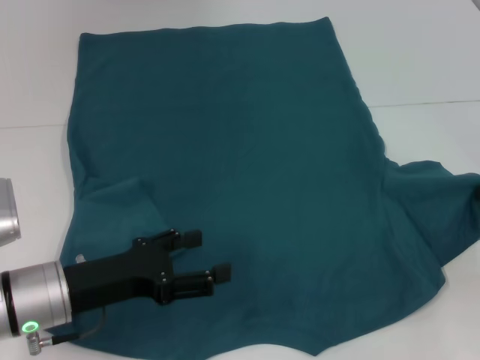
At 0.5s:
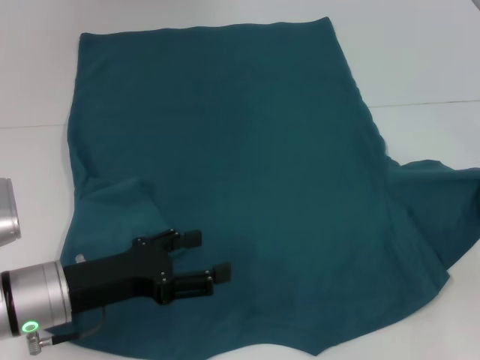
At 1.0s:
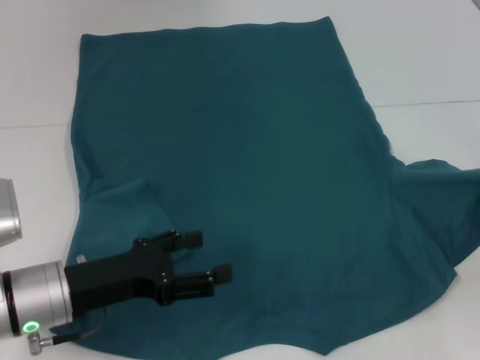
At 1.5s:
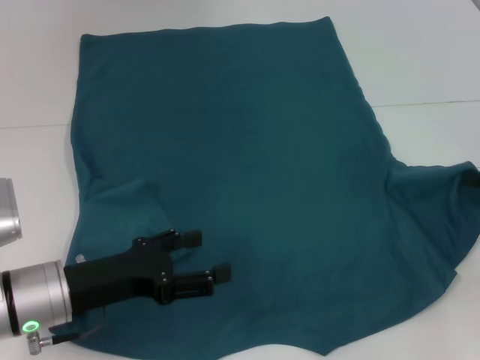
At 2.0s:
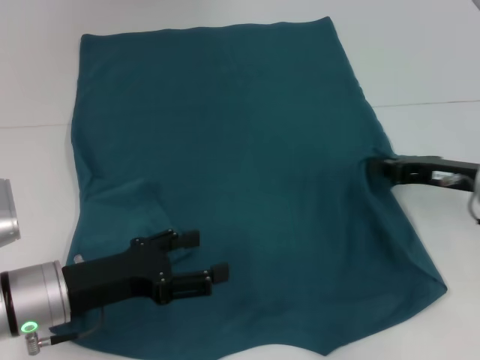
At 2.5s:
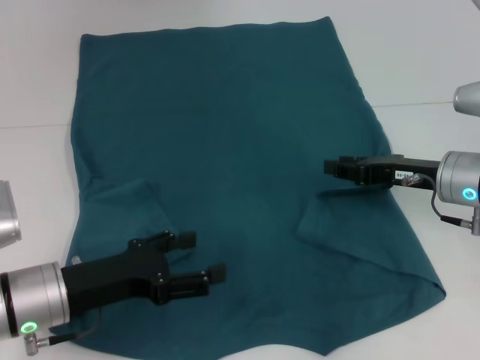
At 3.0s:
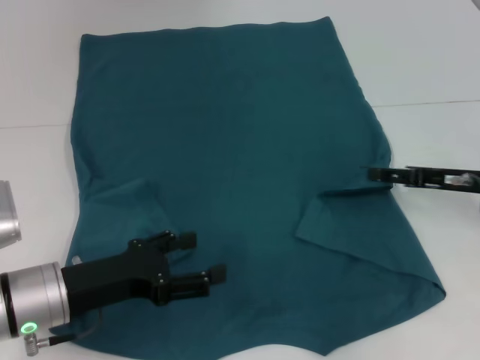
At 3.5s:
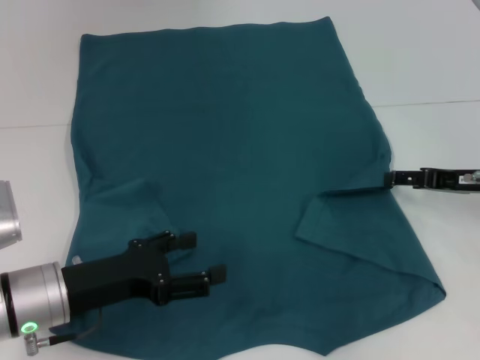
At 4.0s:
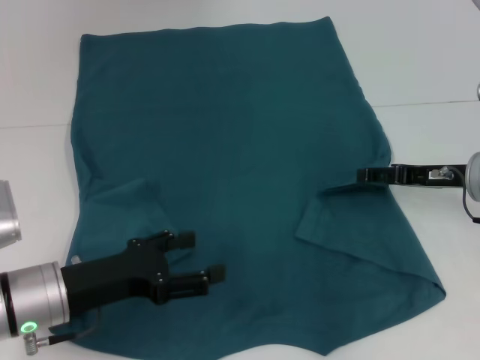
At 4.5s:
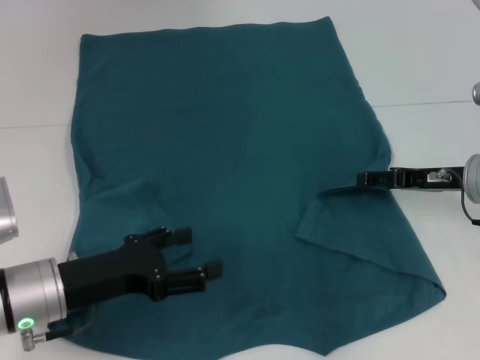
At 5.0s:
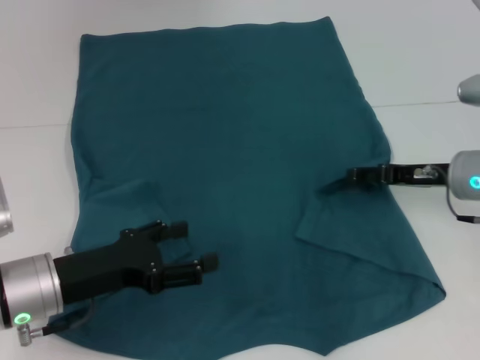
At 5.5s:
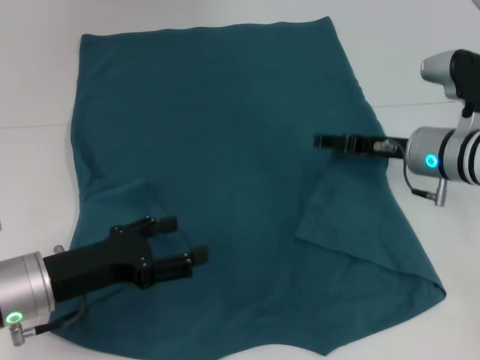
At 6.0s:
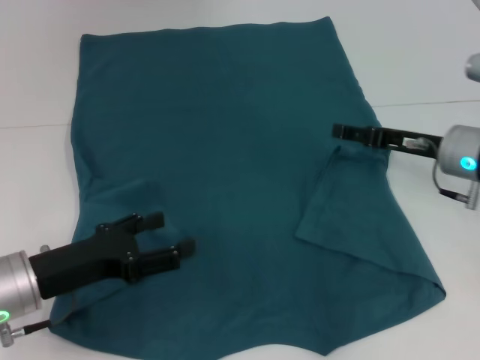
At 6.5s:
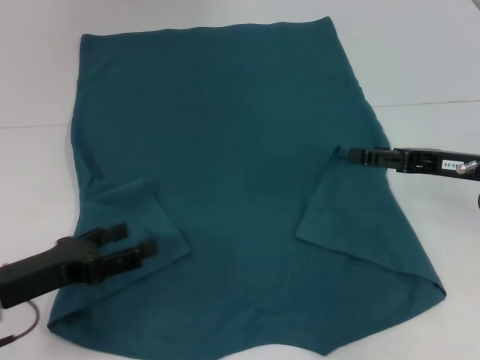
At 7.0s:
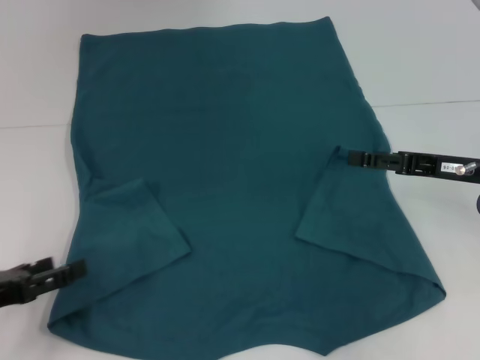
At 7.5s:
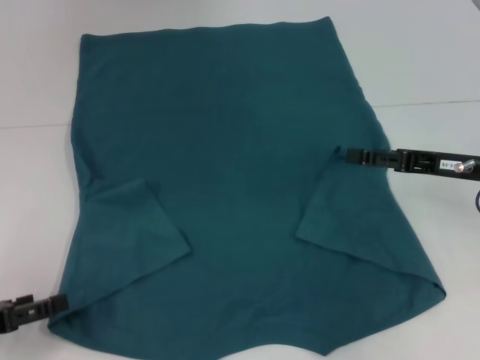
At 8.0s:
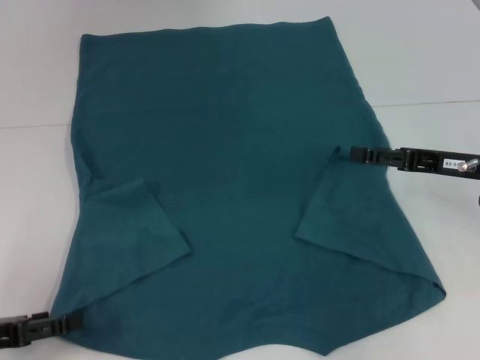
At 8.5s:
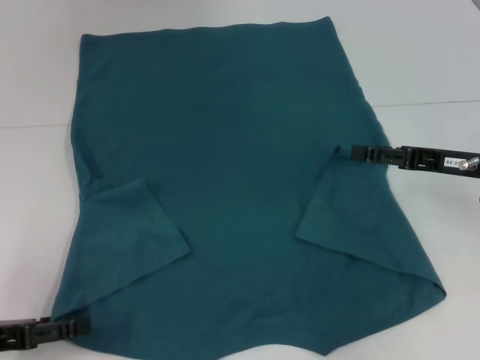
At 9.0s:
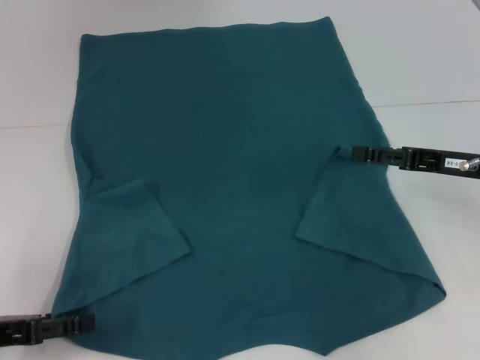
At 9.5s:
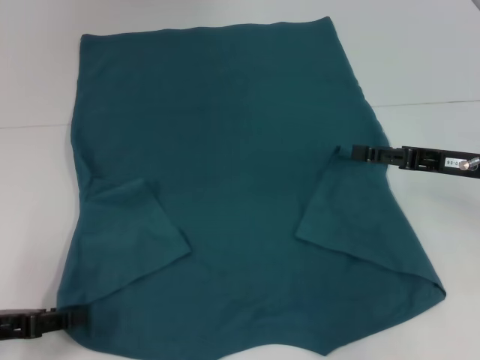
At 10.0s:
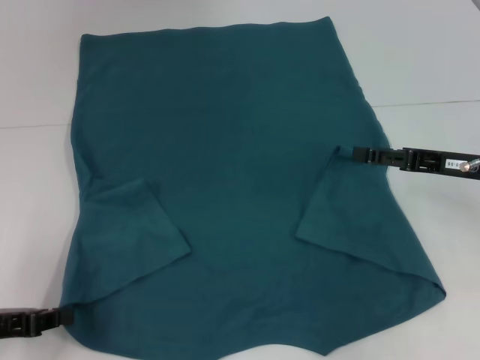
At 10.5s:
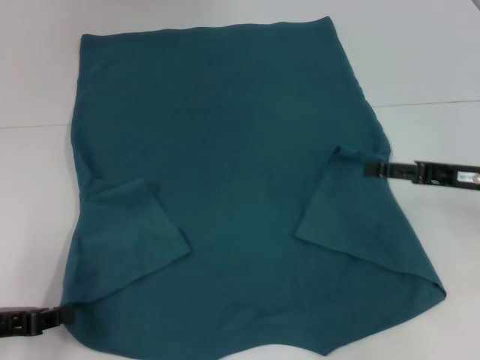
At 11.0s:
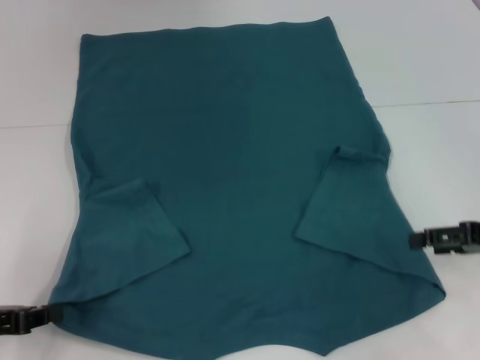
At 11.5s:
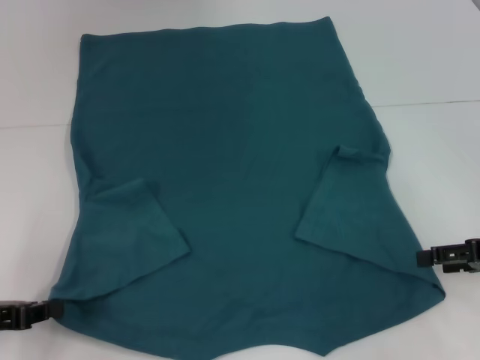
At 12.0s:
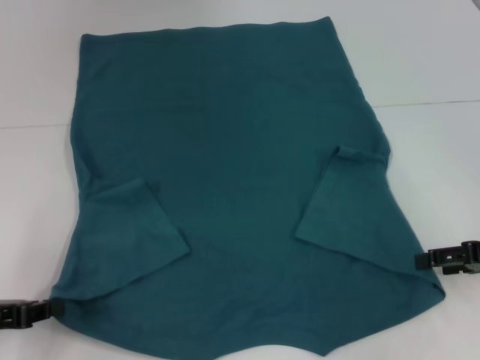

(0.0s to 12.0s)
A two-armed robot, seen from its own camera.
Step, 0.0s - 5.5s: Fold the bottom right sleeve to the right.
Step, 6.0s - 10.5s: Grab the bottom left corner with your left hand.
0.0s - 2.0s: The right gripper heads to the left, covering approximately 10 cm.
2.0s - 4.0s: The right gripper opens up.
6.0s - 8.0s: The right gripper moves some 5 cm. The left gripper heads to the left, covering roughly 10 cm.
8.0s - 10.0s: The left gripper closes up.
10.0s - 12.0s: The right gripper moves to the right, some 5 cm.

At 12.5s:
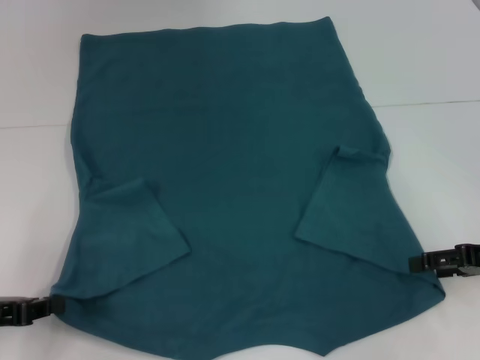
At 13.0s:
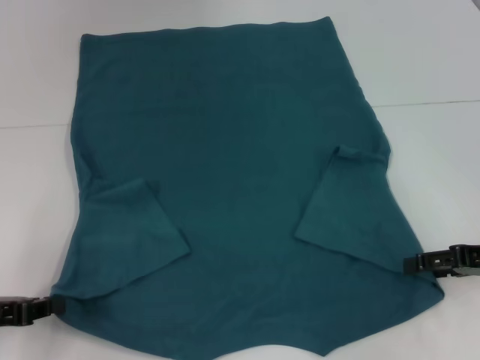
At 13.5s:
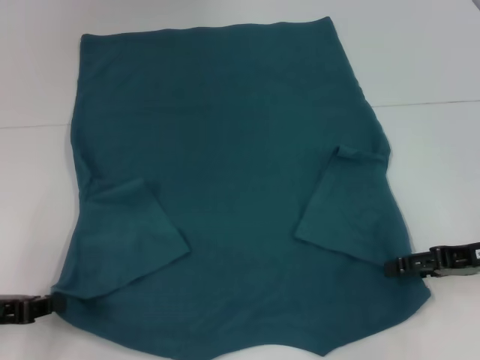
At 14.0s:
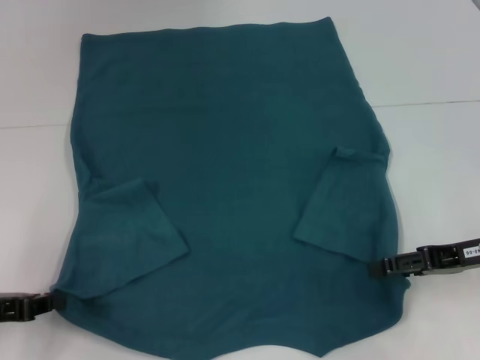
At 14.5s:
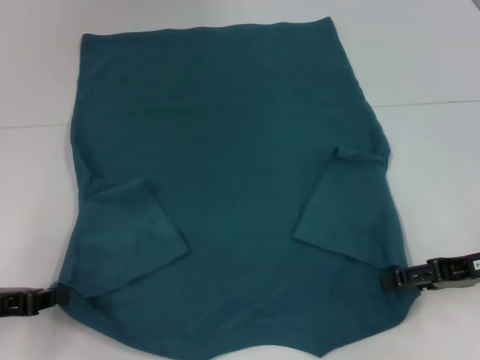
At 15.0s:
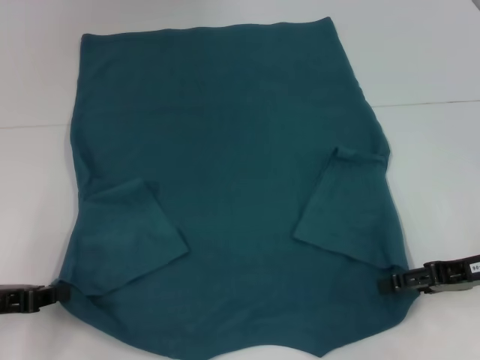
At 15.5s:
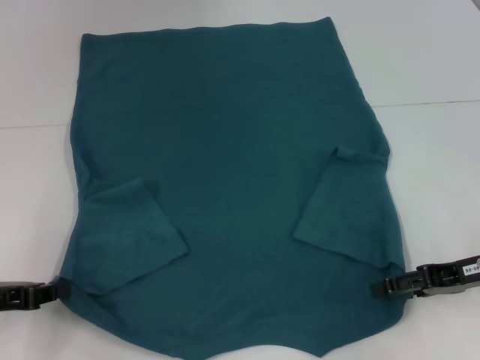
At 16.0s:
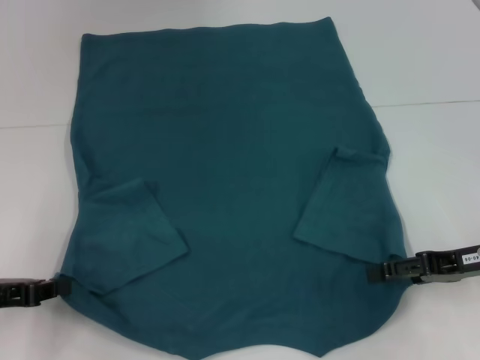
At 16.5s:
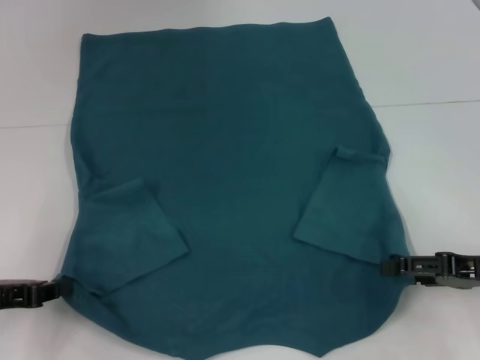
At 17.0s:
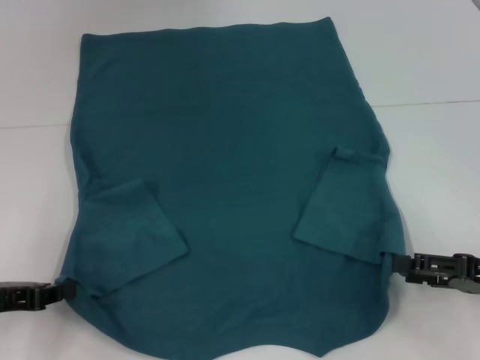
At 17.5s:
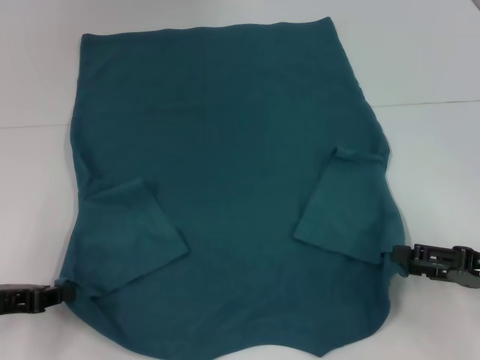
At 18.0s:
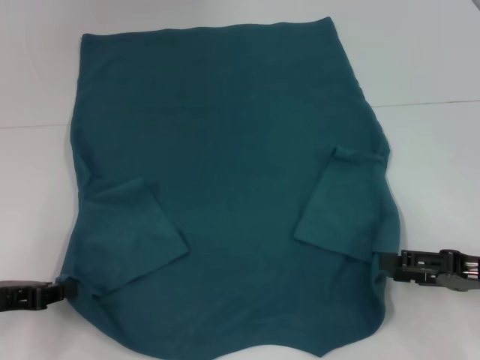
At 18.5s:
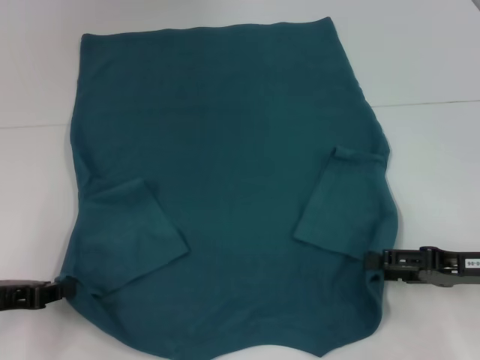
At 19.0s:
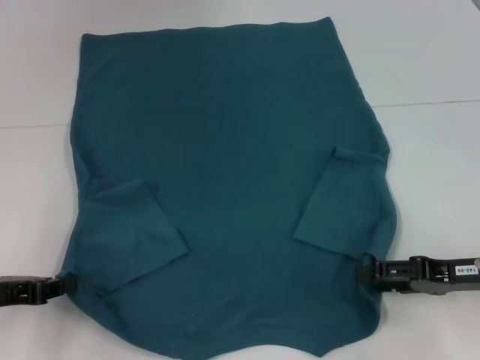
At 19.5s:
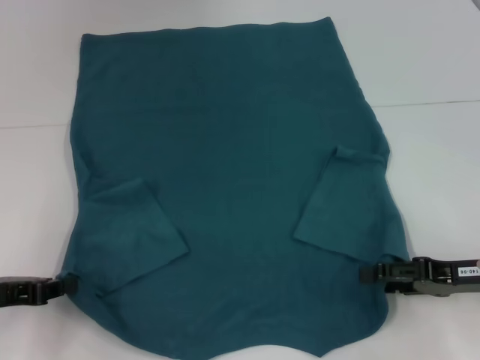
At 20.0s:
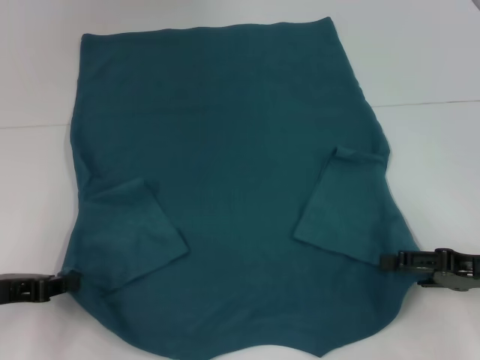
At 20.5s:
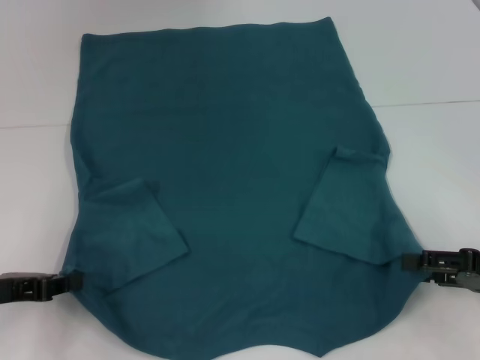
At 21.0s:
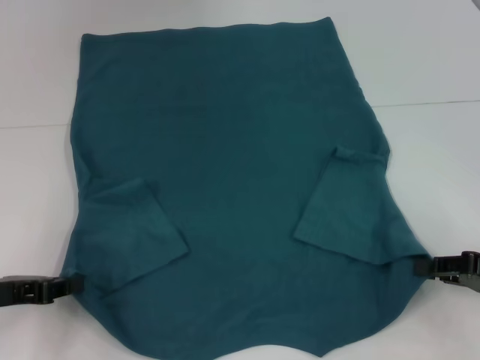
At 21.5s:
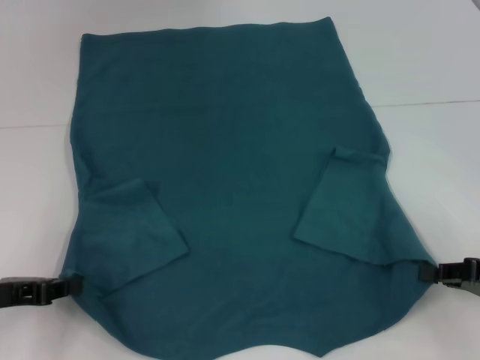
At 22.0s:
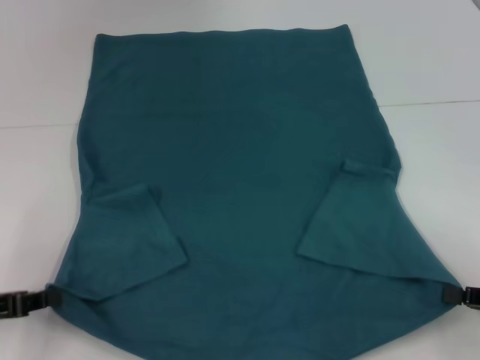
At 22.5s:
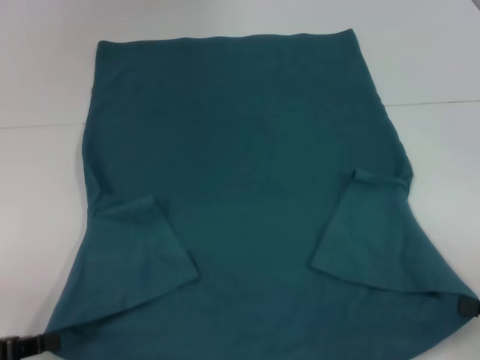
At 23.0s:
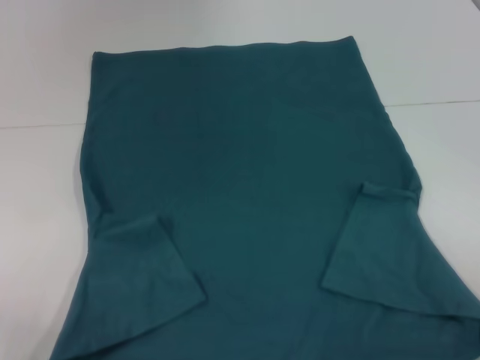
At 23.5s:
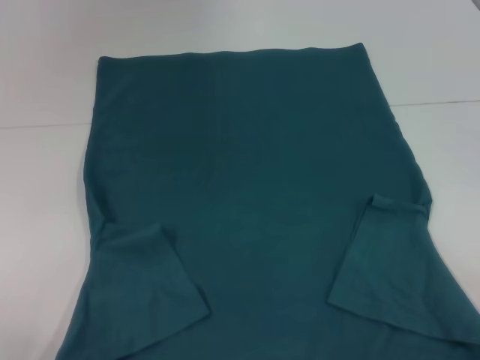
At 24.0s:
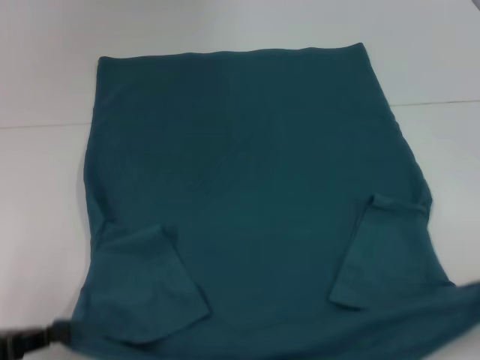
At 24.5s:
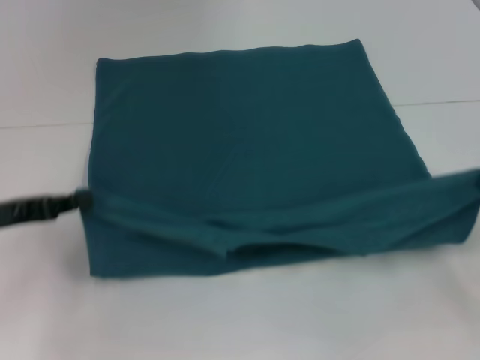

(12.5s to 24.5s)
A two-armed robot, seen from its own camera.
Step, 12.5s - 21.5s: Grab the bottom right corner with your right hand.
12.5s - 16.5s: The grippers make only small movements.
16.5s - 20.5s: The grippers make only small movements.
20.5s - 22.5s: The grippers both shift backward by about 5 cm. The right gripper closes.
22.5s - 24.5s: The left gripper goes about 10 cm forward and upward, while the right gripper is displaced forward by roughly 5 cm.

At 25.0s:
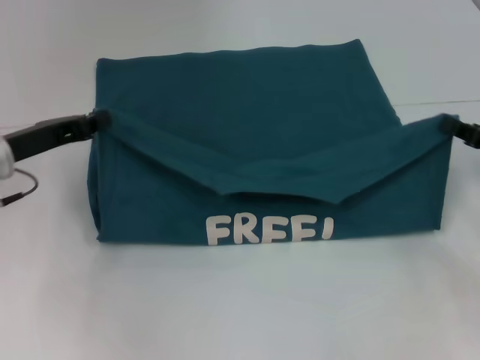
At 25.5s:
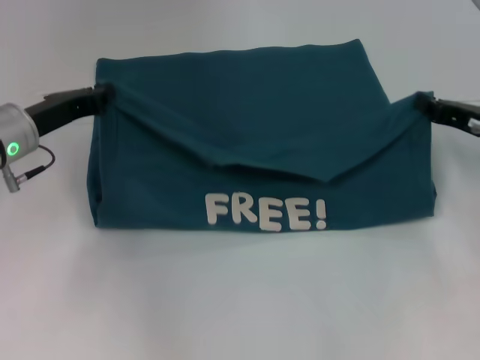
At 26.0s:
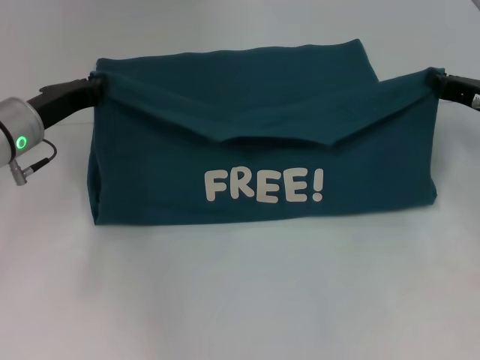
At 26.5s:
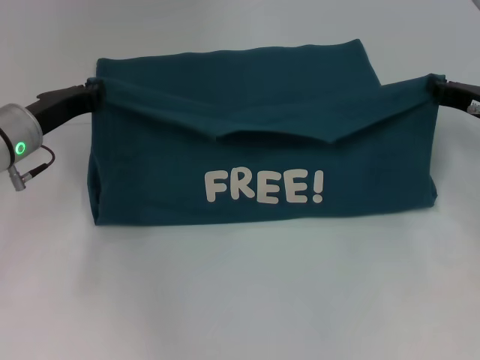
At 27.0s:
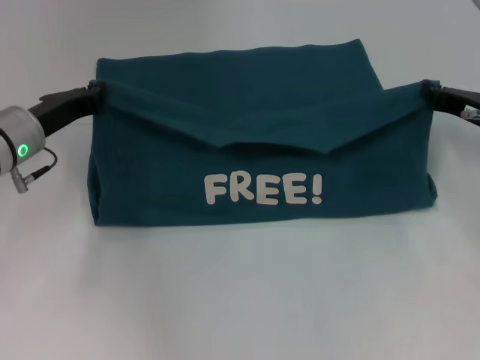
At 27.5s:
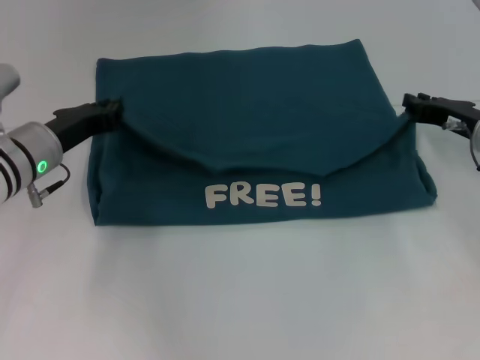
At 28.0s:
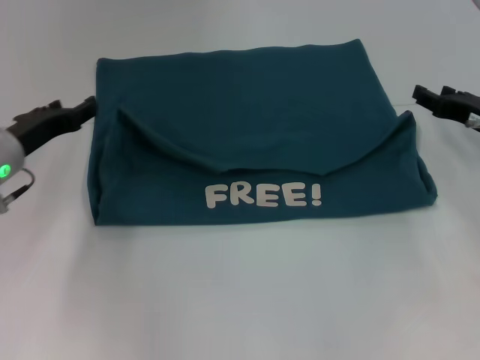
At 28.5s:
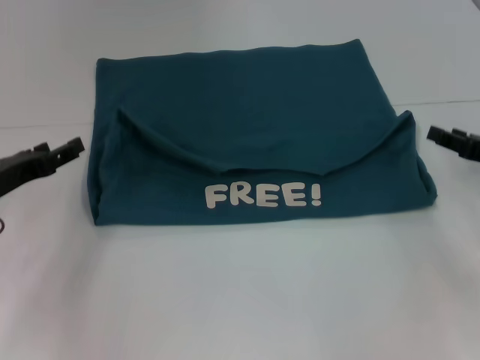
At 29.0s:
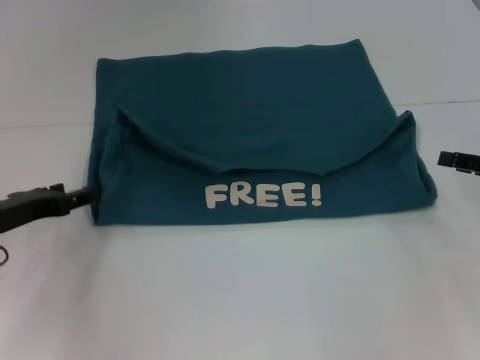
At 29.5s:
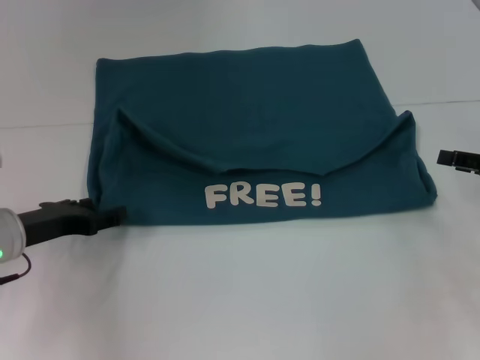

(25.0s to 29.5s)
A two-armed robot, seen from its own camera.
Step, 25.0s - 27.5s: Fold the clothes to the left.
Step, 25.0s - 27.5s: Fold the clothes to the right.
25.0s - 27.0s: The right gripper shifts about 5 cm forward.
27.0s - 29.5s: The right gripper moves backward and to the right, approximately 10 cm, and opens up, while the left gripper heads backward, covering some 5 cm, and opens up.
